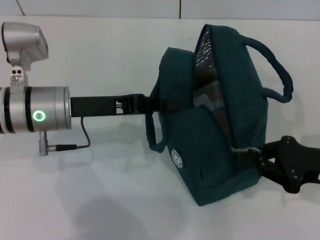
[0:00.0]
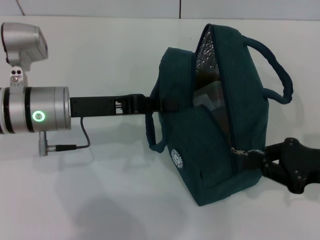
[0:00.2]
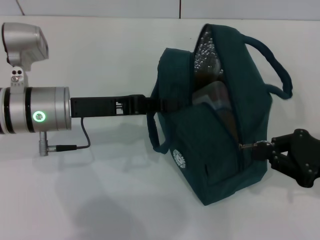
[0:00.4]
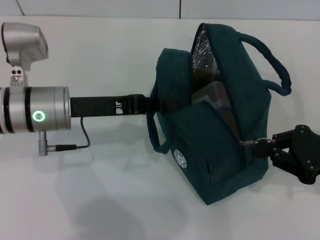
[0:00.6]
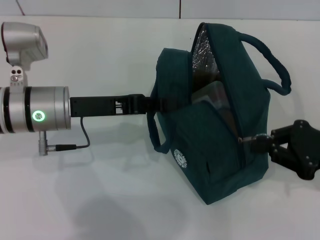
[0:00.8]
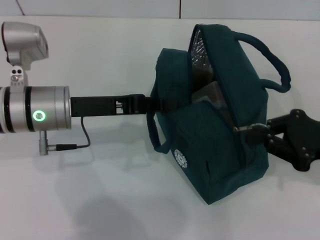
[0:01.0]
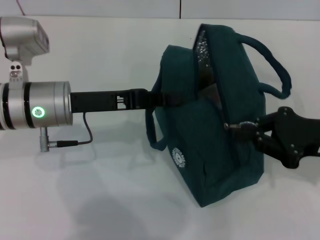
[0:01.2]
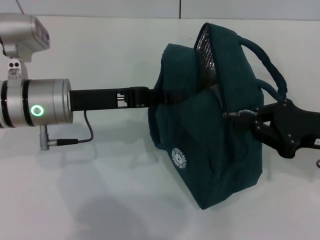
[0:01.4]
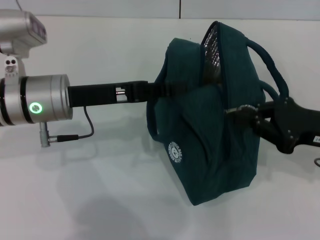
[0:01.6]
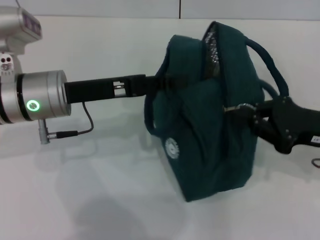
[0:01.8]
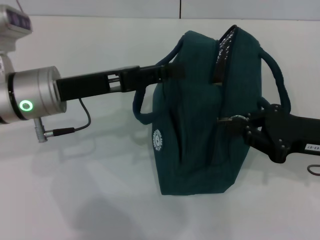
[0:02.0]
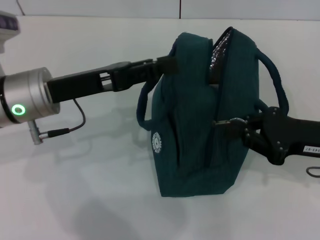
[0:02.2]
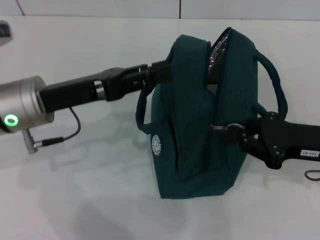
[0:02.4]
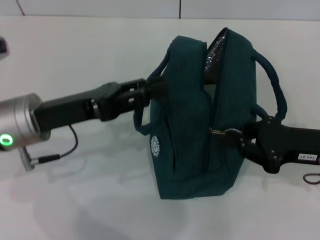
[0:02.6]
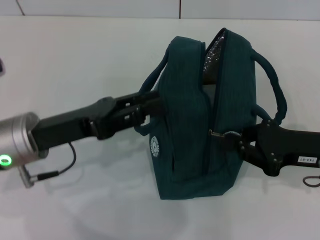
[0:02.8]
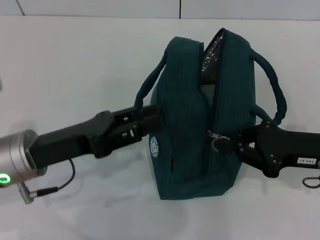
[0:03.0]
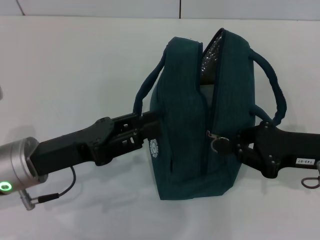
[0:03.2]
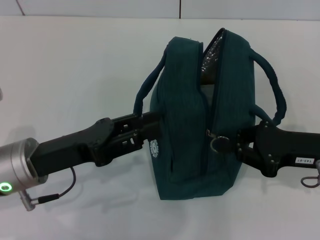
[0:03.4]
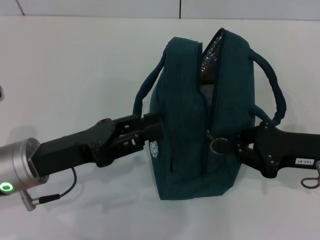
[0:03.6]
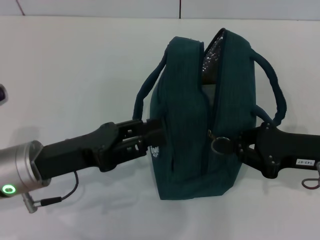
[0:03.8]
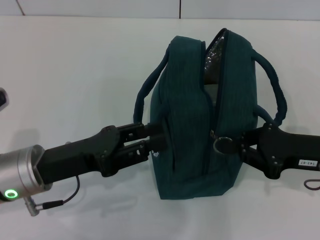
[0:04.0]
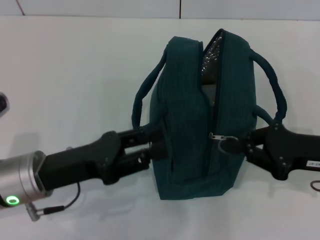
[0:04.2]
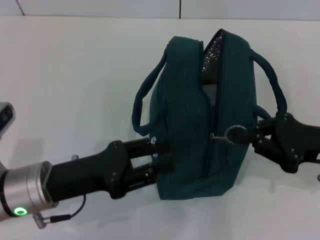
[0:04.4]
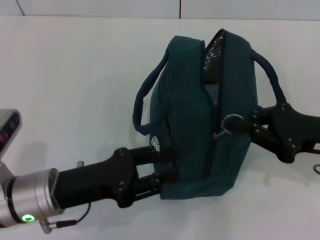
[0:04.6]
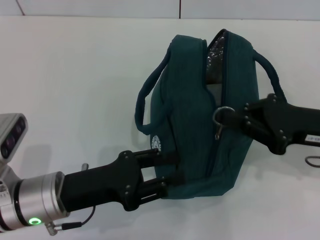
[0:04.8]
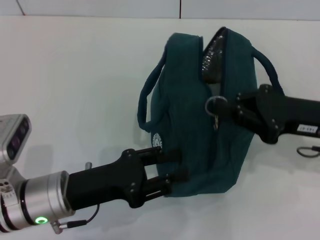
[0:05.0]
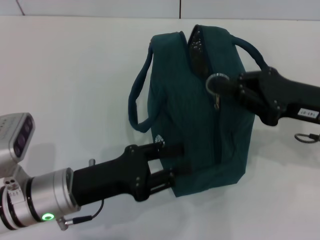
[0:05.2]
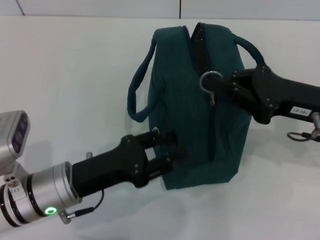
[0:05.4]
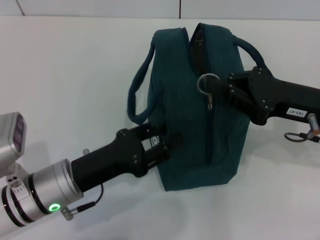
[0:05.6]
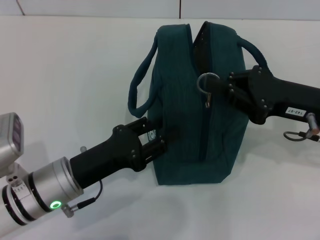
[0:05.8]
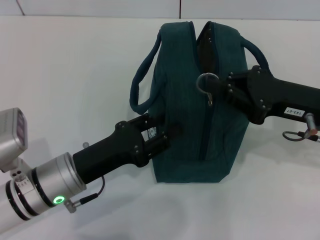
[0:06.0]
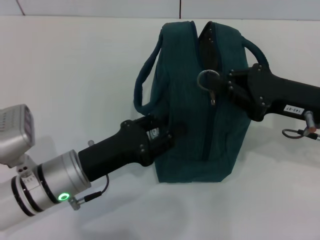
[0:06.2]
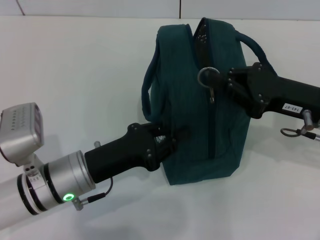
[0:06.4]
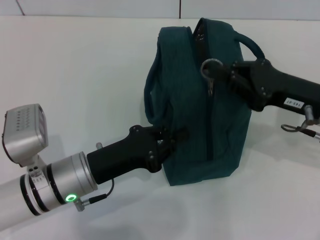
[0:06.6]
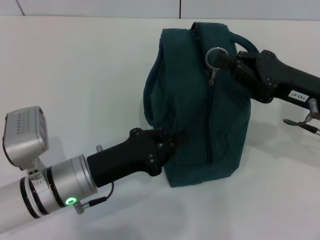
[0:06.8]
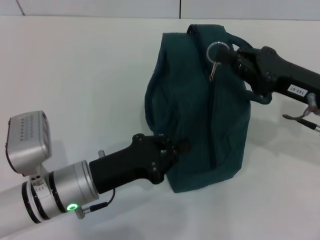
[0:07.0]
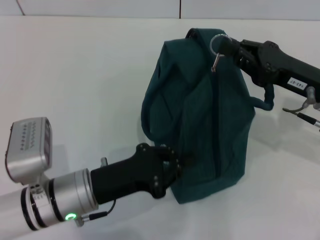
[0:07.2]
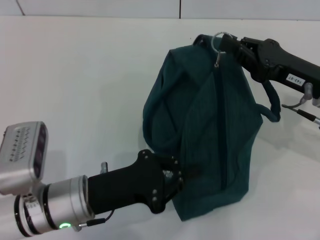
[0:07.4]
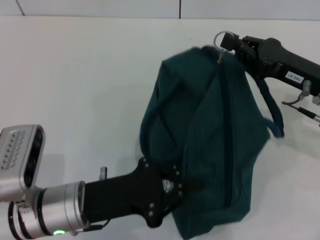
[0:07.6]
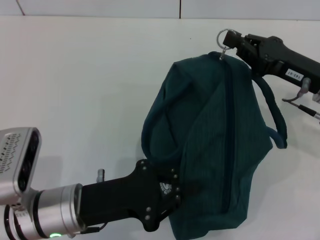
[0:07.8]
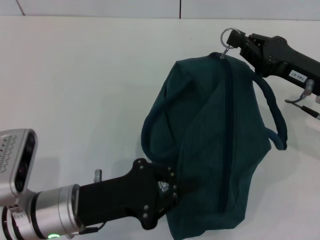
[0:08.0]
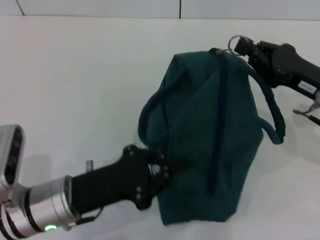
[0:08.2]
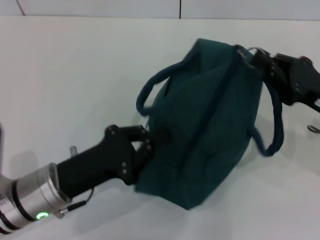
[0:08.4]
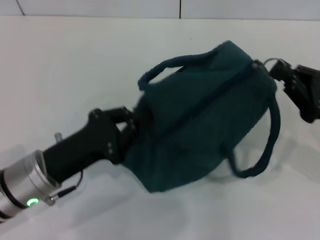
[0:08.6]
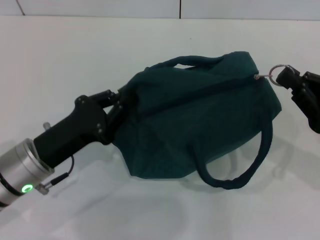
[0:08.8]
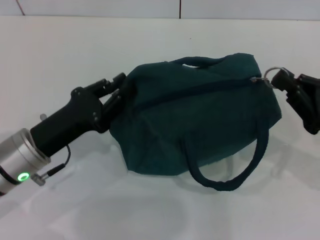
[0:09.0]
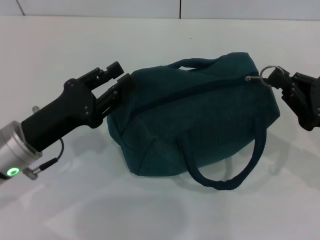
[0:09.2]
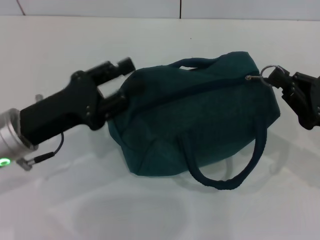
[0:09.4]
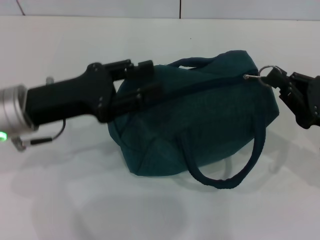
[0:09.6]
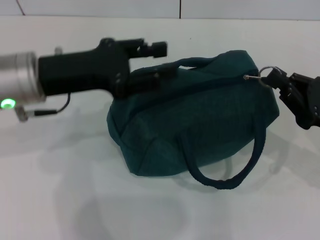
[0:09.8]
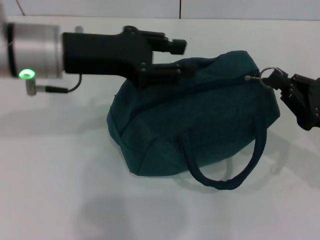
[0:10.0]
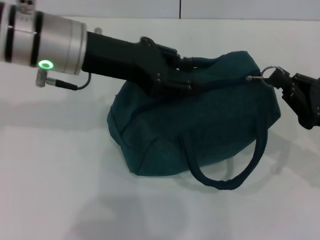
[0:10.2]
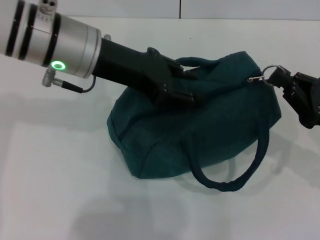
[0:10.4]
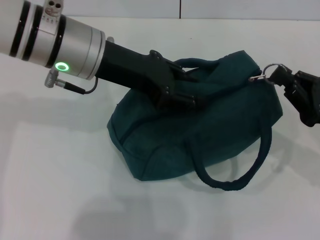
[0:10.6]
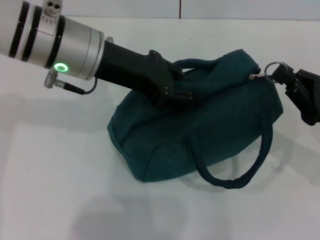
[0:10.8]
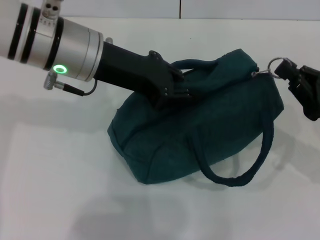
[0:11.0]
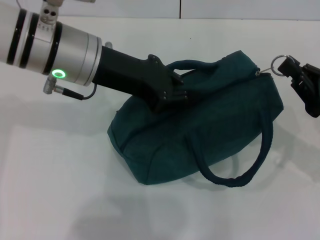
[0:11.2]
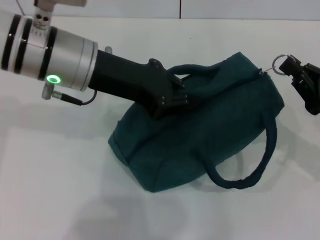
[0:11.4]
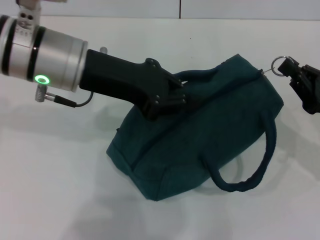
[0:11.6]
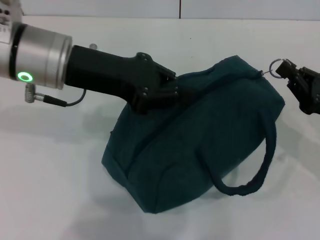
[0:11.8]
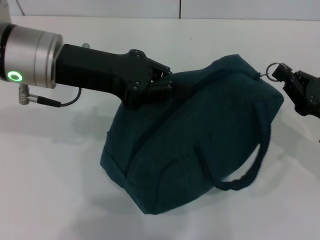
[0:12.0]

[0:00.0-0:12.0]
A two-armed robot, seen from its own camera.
0:01.6 to 0:03.0: The left gripper moves backward, roughly 5 cm, and opens.
0:03.0 to 0:04.4: The grippers move only a little.
0:04.4 to 0:06.0: The right gripper changes place by roughly 5 cm.
0:06.0 to 0:07.6: The left gripper closes up.
0:07.6 to 0:09.0: The right gripper shifts roughly 10 cm backward; the left gripper travels to the left by approximately 5 cm.
0:09.0 to 0:10.4: The left gripper moves upward, forward and to the right, approximately 20 cm, and opens up.
0:10.4 to 0:12.0: The left gripper closes.

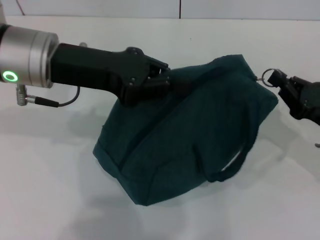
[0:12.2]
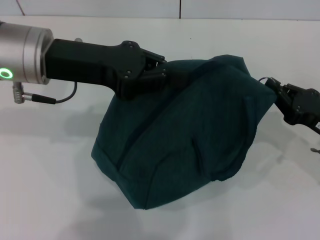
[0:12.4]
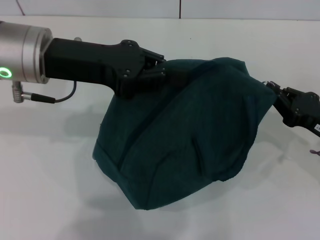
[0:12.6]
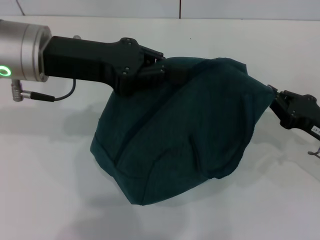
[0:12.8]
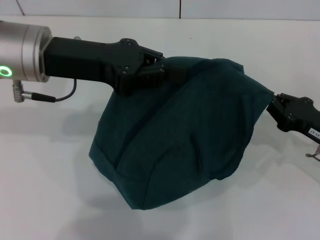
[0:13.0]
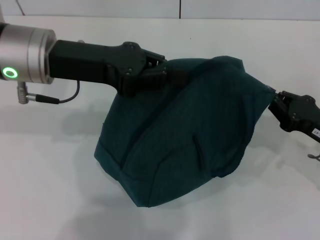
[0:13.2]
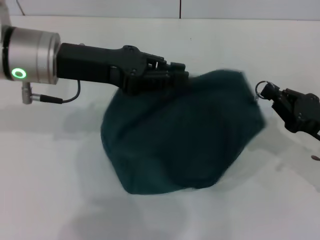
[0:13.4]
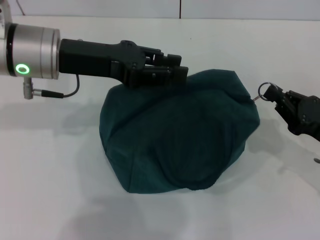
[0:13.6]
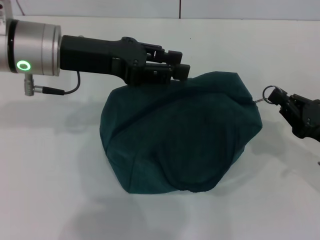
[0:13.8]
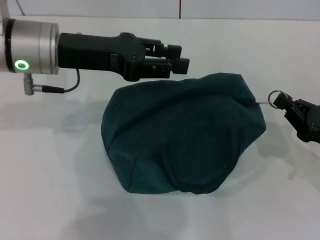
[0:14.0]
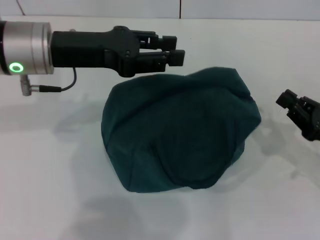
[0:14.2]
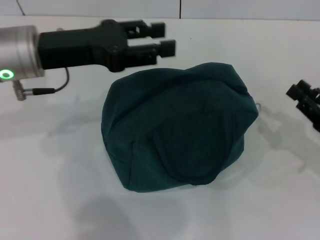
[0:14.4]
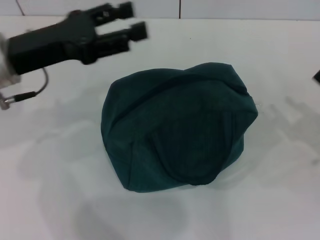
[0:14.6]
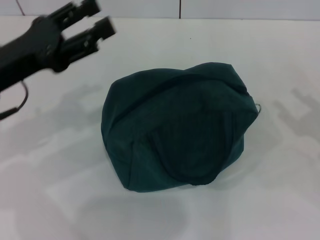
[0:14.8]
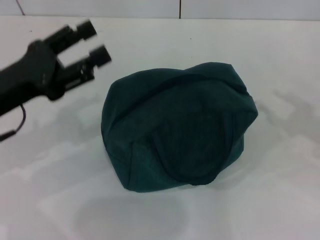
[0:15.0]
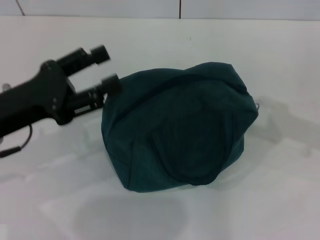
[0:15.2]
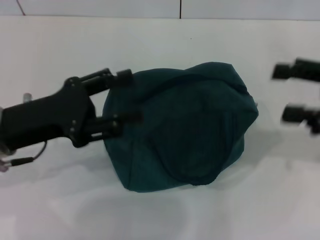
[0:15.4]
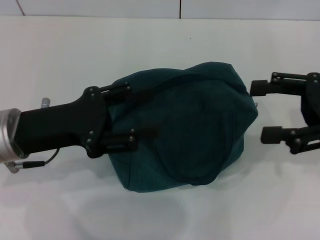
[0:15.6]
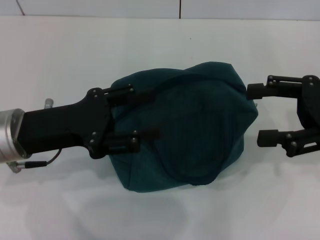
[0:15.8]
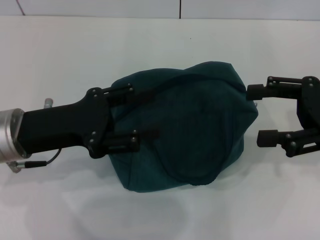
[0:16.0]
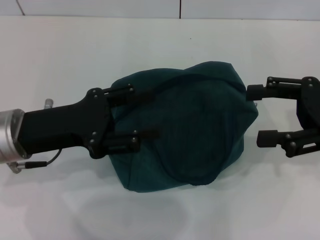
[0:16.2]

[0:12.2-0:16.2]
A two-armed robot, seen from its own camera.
Step, 0:14.0 to 0:14.2: Zip up the lunch bag with your right hand.
0:12.2 to 0:13.6: The grippers stay close to where they were, moving slightly.
0:13.6 to 0:14.8: The right gripper travels to the right by some 5 cm, and opens its fingers; the left gripper shifts some 10 cm to the left and backward, and opens its fingers.
0:14.8 to 0:16.2: The left gripper shifts by approximately 5 cm. Meanwhile the right gripper travels upward and to the left by approximately 10 cm, and opens up.
